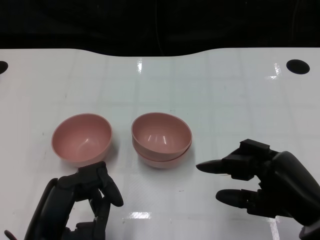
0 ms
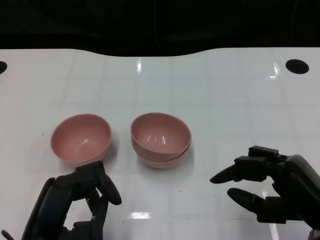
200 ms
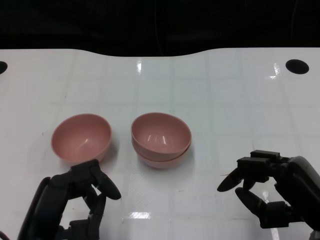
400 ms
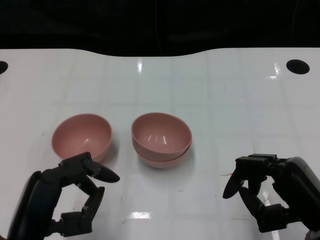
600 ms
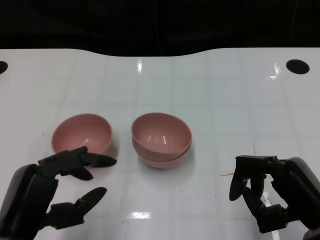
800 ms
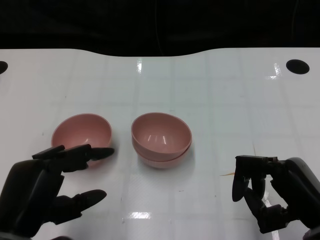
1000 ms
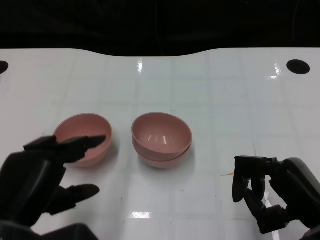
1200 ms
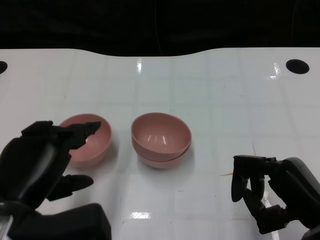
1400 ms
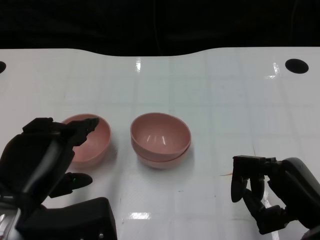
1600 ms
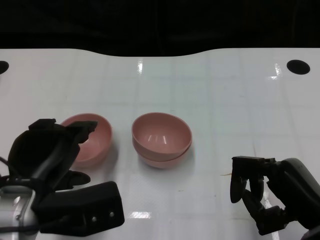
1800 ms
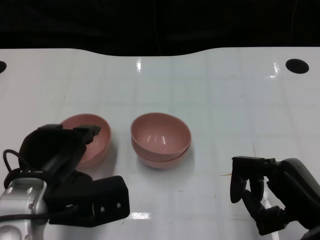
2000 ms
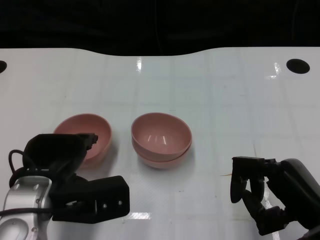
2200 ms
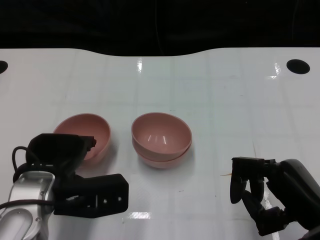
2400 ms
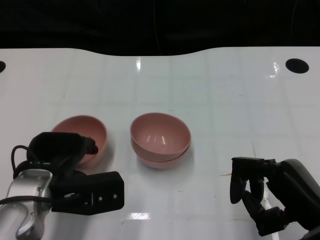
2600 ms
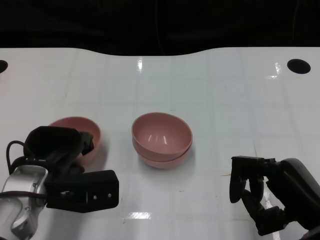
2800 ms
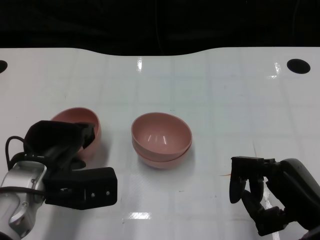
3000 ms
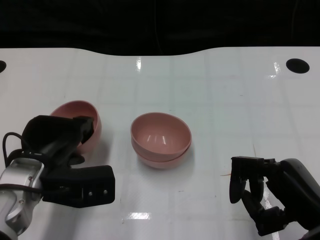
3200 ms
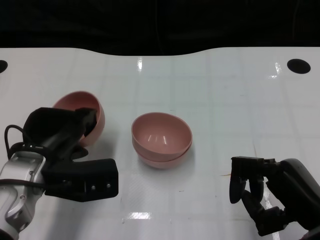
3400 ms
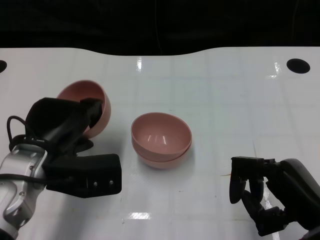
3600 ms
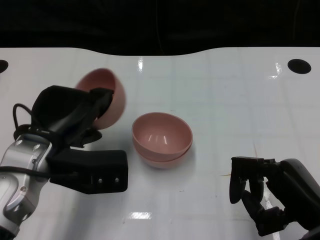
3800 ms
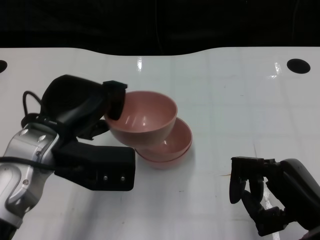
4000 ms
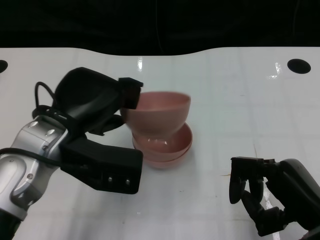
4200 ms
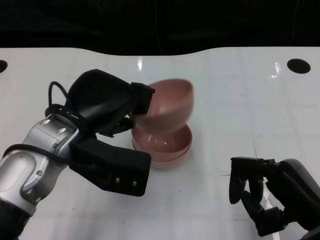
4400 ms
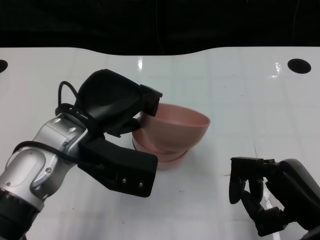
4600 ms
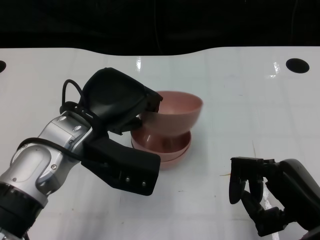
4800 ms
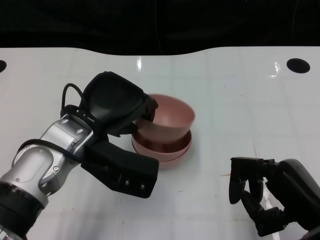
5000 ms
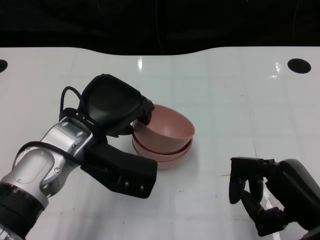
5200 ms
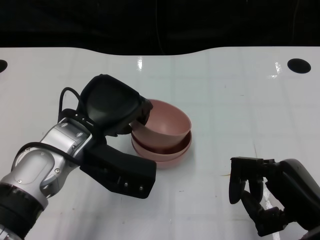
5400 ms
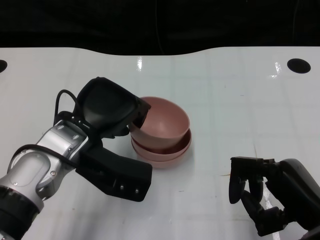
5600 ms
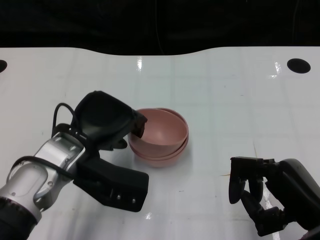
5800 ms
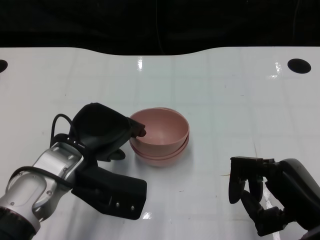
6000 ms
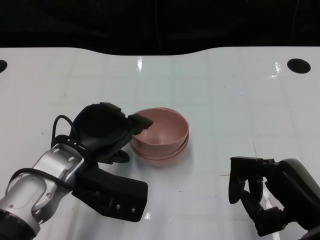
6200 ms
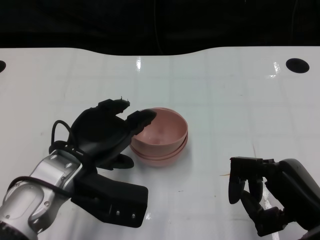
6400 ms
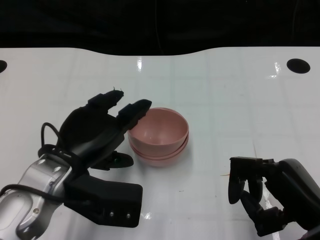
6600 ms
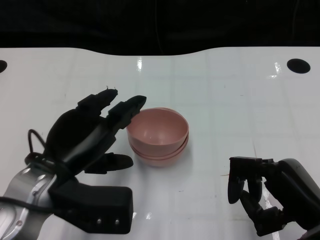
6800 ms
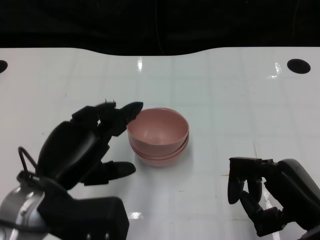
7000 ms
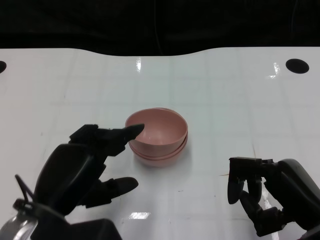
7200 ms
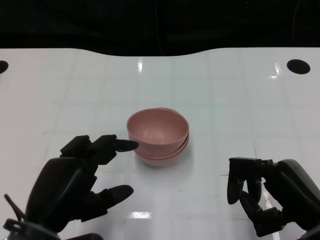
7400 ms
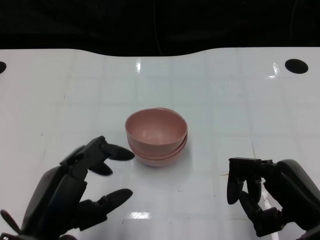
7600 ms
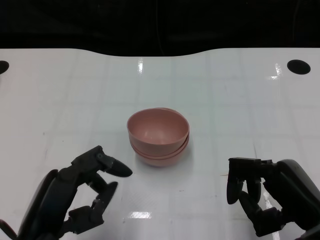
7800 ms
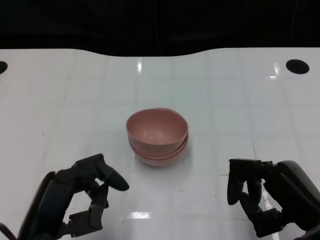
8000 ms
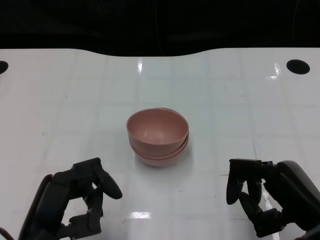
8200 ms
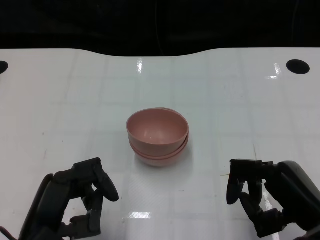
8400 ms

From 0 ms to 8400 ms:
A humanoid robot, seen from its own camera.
Task of the whole recording: Pick up the bowl on one side of the table and place it on top of the middle bowl, then pick up the bowl on the other side of the table and place it on top of the middle bowls.
Step, from 0 ms to 2800 ms: Grasp the bowl on the left with the left gripper.
Step, from 3000 ms to 6800 ms: Place the bowl on the left onto the bowl in the middle with left gripper.
From 0 ms to 1400 ms: The left hand shifts by roughly 5 cm.
From 1400 ms to 2800 ms: The left hand is displaced forward and downward by approximately 10 cm.
From 2800 ms to 4200 ms: The left hand is displaced upward by some 10 cm.
From 4200 ms to 5600 ms: The hands stay close to where they were, moving slightly.
From 5600 ms to 7000 ms: The left hand travels backward by approximately 5 cm.
From 7000 ms to 8400 ms: The left hand heads backward, covering roughly 5 cm.
